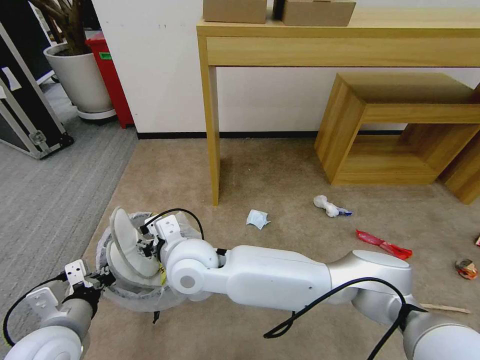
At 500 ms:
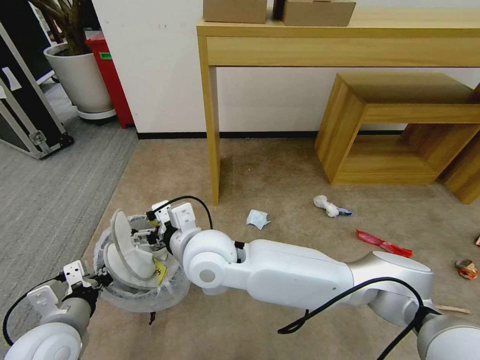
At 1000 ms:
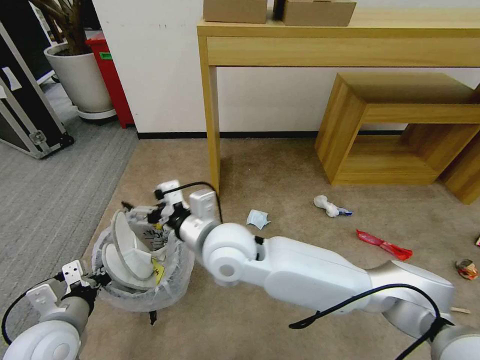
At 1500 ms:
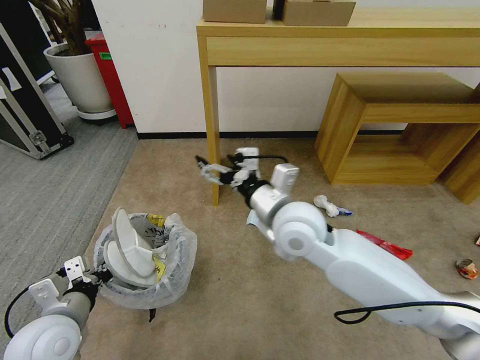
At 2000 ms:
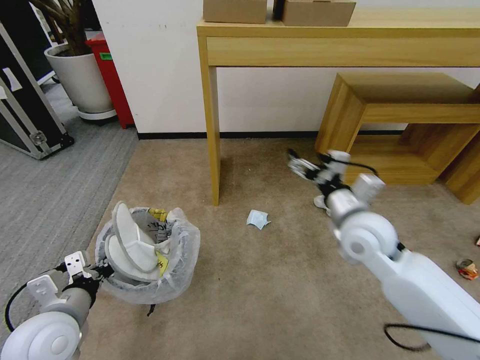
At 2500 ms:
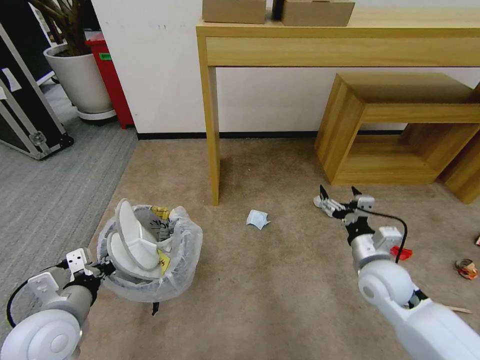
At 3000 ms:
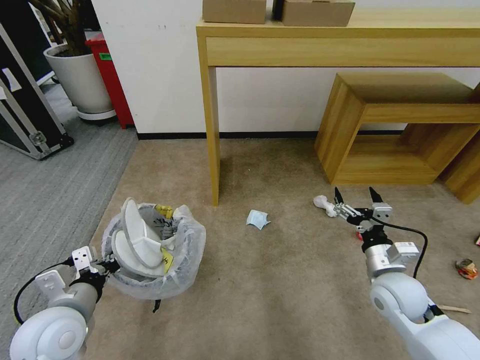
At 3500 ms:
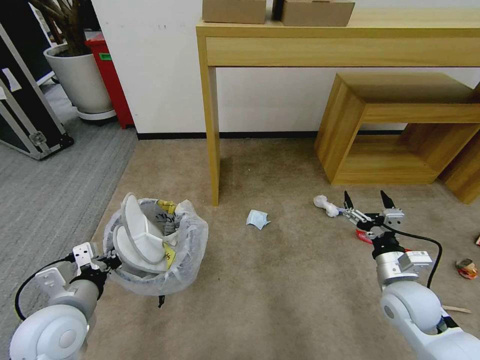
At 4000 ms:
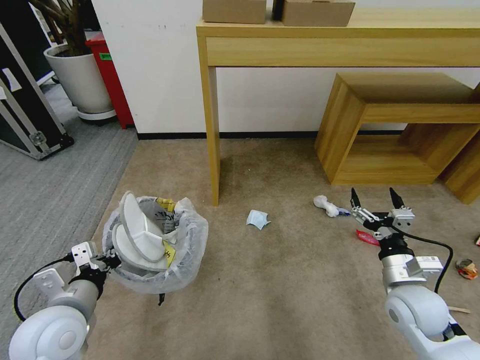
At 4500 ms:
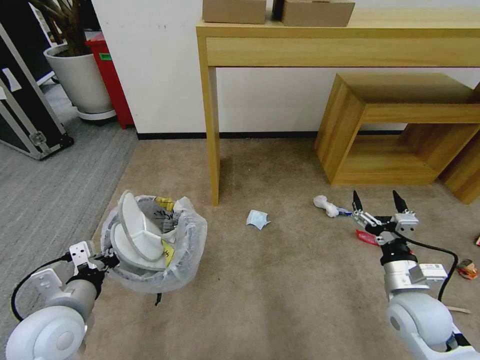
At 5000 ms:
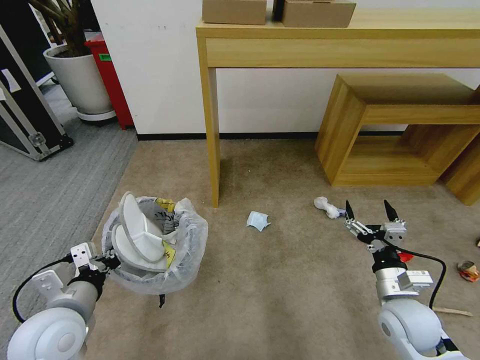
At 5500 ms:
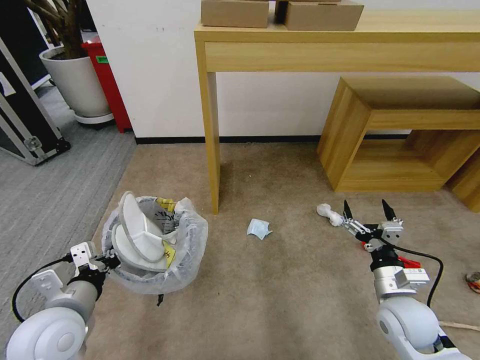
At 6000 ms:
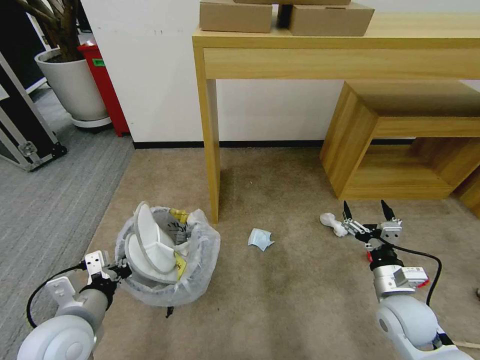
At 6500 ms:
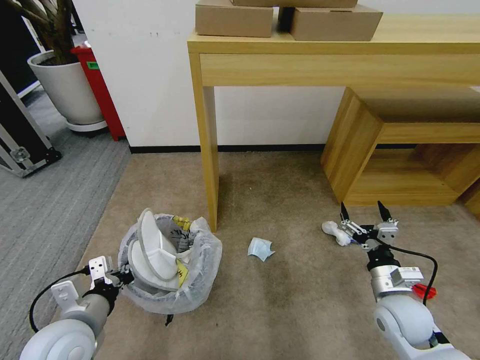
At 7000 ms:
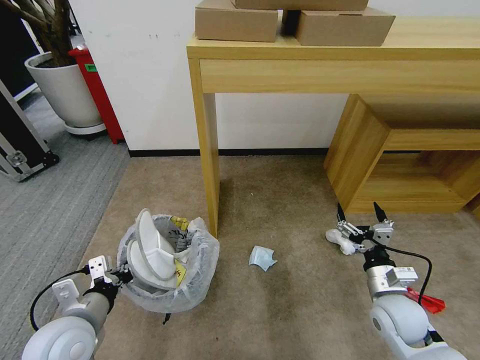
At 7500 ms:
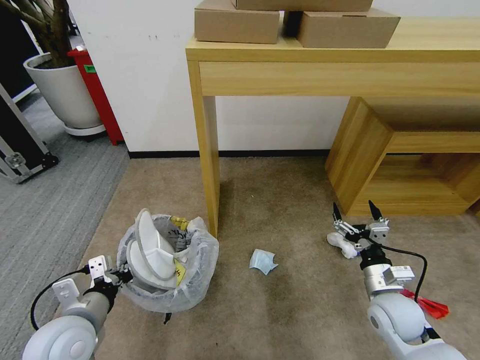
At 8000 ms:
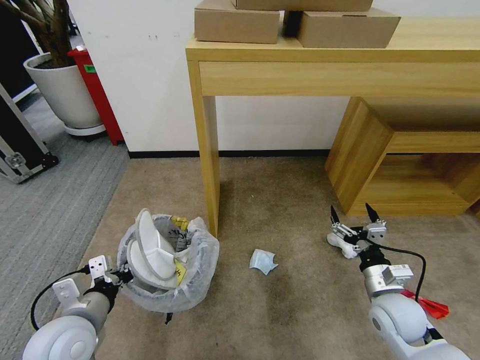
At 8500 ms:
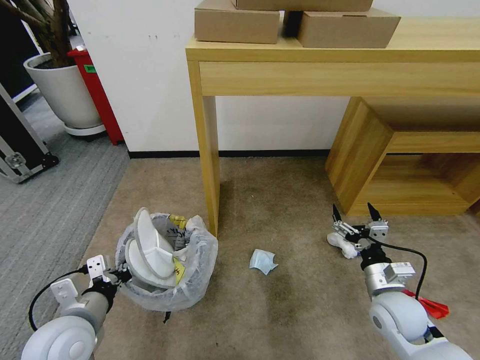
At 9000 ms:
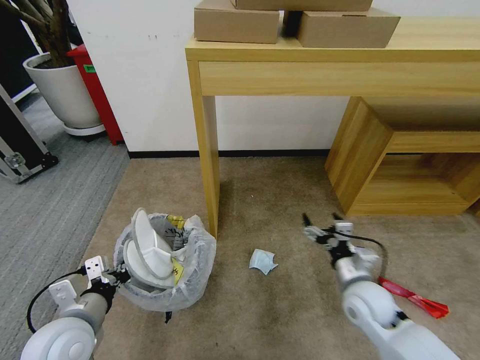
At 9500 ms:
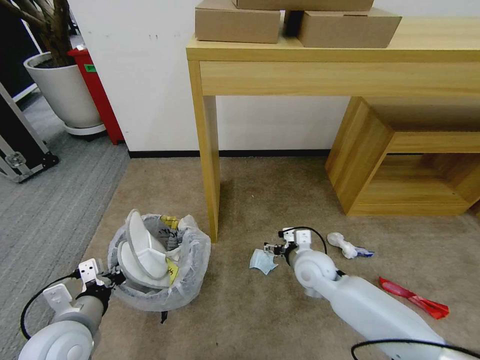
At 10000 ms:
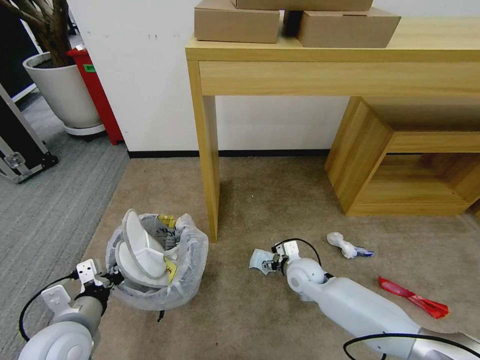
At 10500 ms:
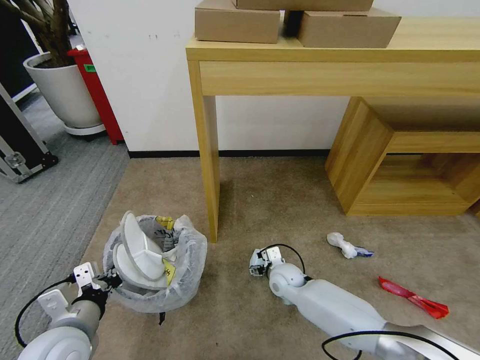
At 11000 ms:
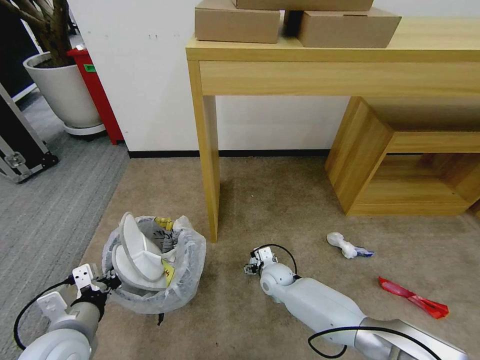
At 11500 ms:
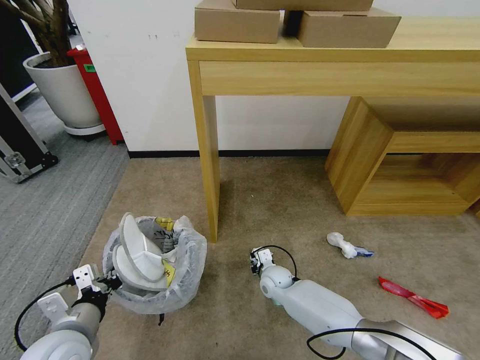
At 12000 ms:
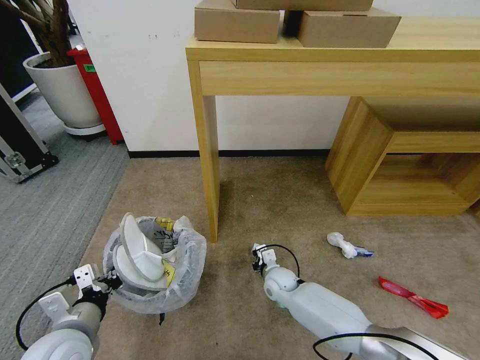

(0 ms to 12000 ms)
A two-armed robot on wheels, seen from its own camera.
Task of the whole recording: Pick up the trash bin and place the garbage on the floor into it.
0 ms - 2000 ms: The right gripper heads to the right, covering some 30 cm, and opens.
2000 ms - 4000 ms: The right gripper travels downward, to the right and backward by some 20 cm.
8000 ms - 10000 ms: The right gripper is displaced to the left, forward and downward by some 20 cm.
10000 ms - 12000 ms: The right gripper goes roughly 10 cm downward and to the left, and closes its fingers.

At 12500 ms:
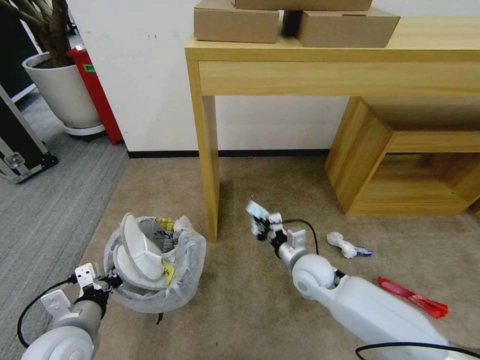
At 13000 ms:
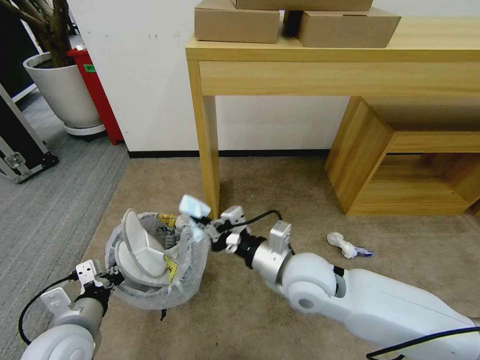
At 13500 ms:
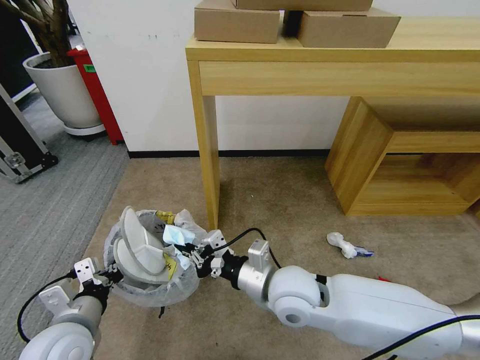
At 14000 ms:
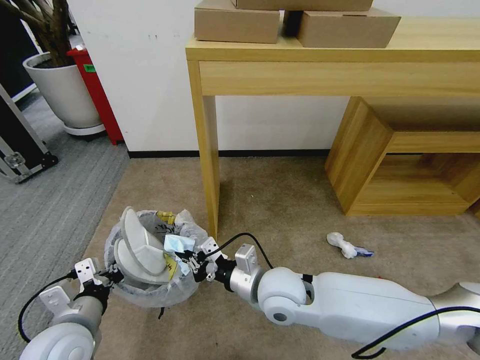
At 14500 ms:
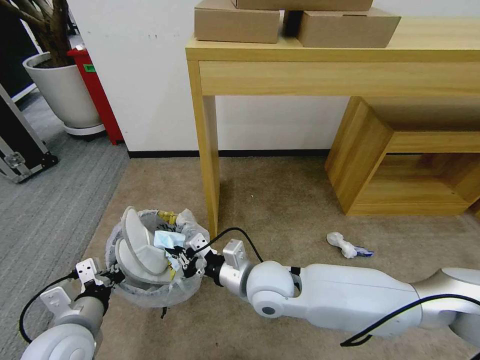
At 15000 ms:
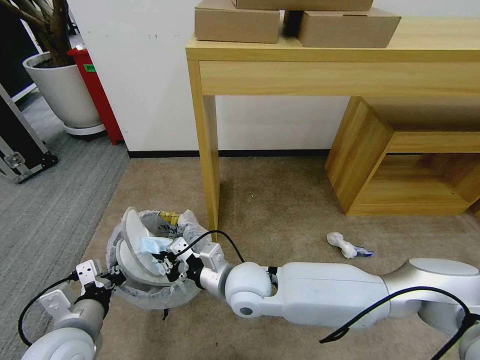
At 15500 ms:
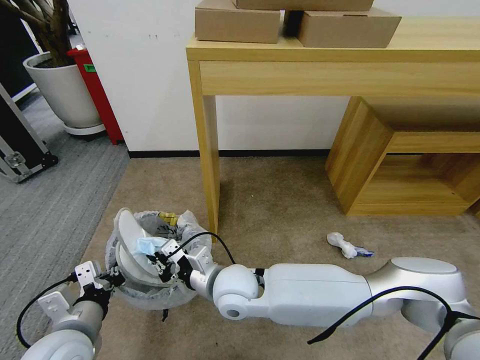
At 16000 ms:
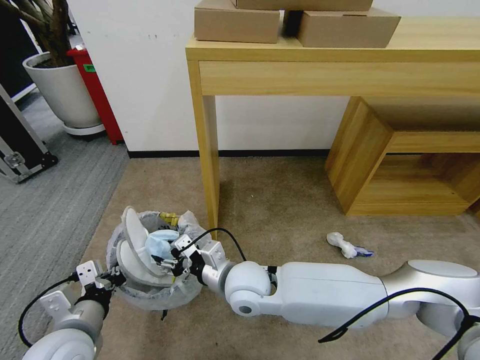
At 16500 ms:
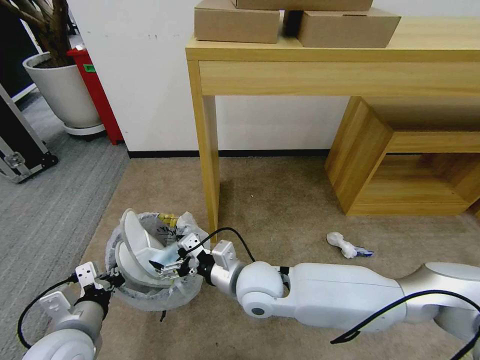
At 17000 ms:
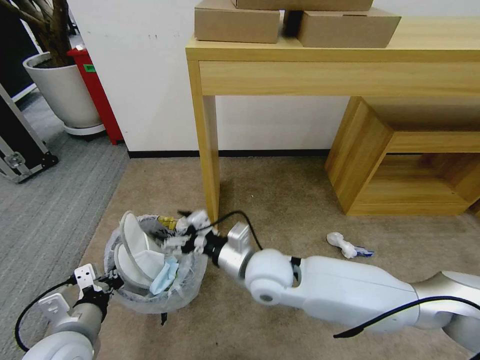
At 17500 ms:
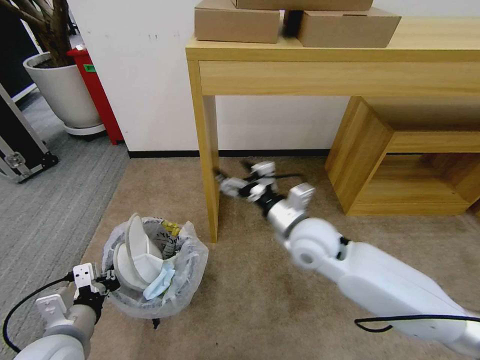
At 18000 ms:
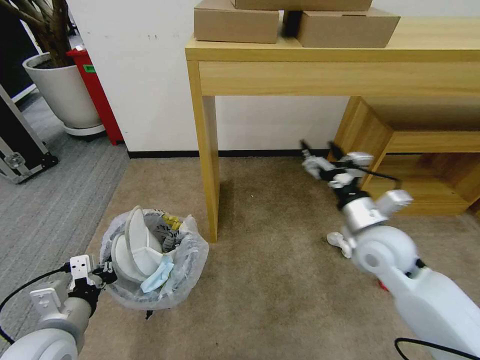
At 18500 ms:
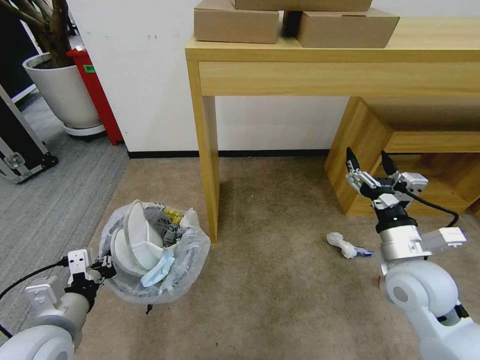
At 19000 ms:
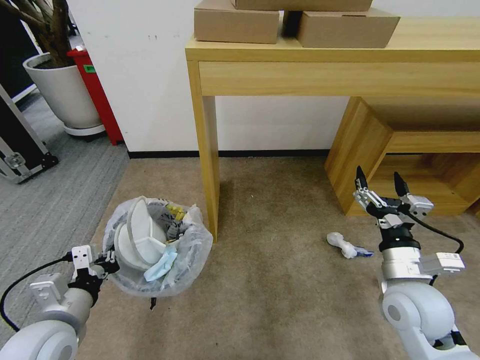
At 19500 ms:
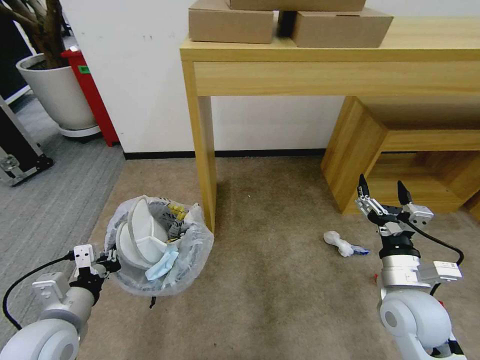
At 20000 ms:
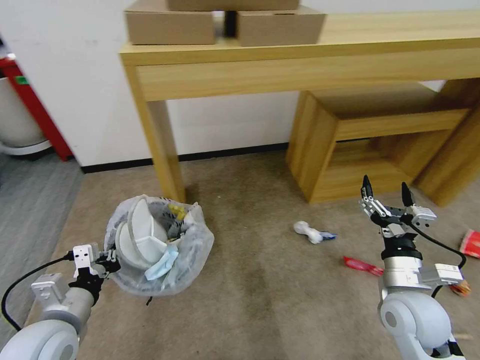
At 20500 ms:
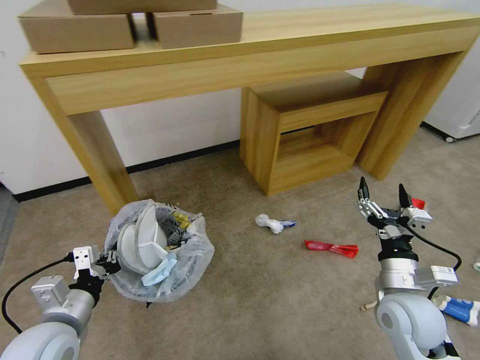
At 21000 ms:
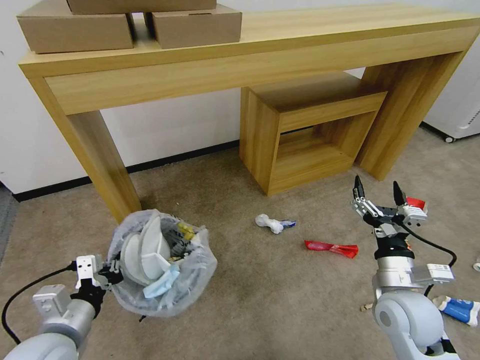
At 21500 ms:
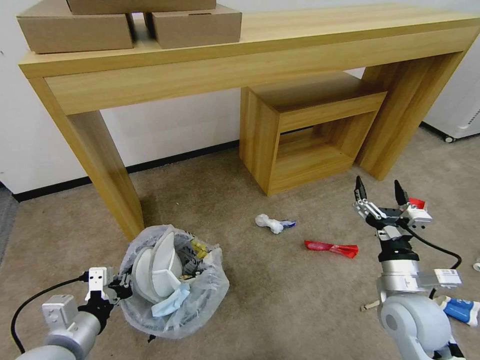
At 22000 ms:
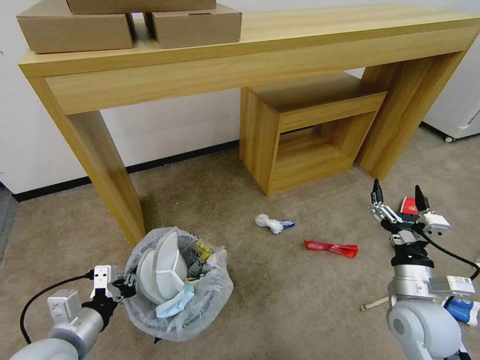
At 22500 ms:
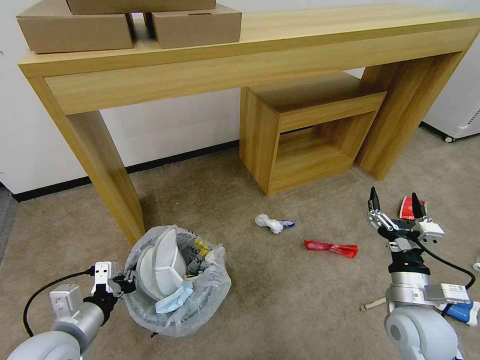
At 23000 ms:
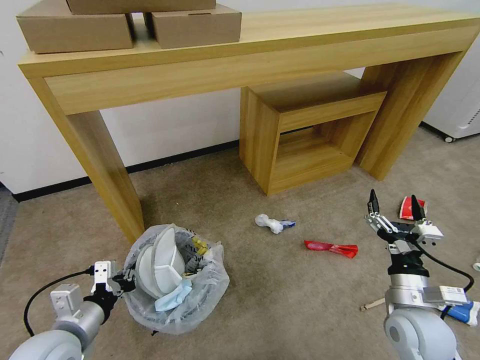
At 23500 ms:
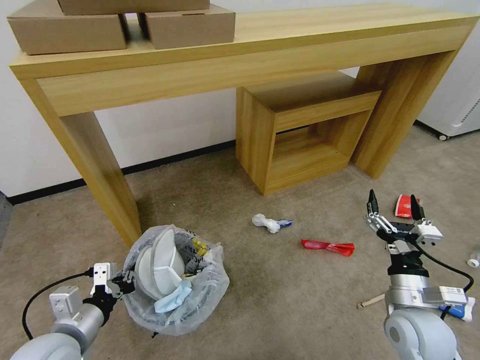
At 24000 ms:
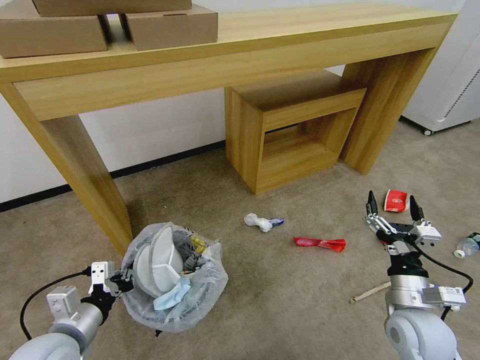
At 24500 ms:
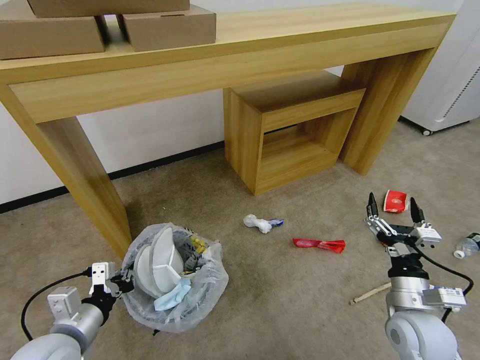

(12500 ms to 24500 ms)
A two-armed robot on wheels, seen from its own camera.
Task of the whole recording: Pick up the trash bin and place the garbage on the floor into it.
12500 ms - 14500 ms: The right gripper heads to the left, upward and backward, covering about 15 cm.
14500 ms - 16500 ms: The right gripper opens its fingers.
16500 ms - 18500 ms: The right gripper moves to the right, some 25 cm.
18500 ms - 20500 ms: The right gripper is displaced downward by roughly 5 cm.
20500 ms - 22500 ms: The grippers make only small movements.

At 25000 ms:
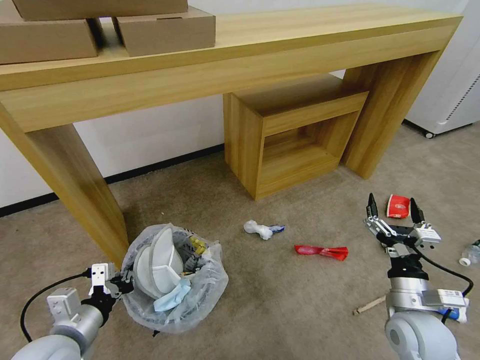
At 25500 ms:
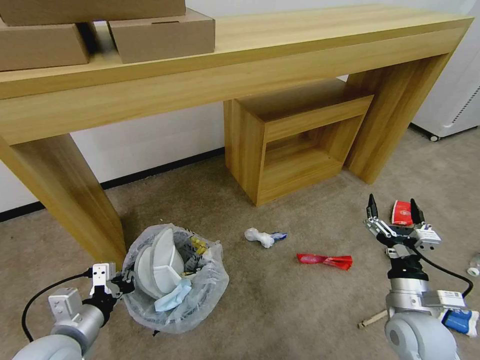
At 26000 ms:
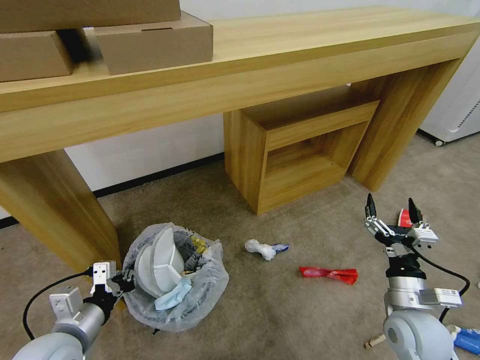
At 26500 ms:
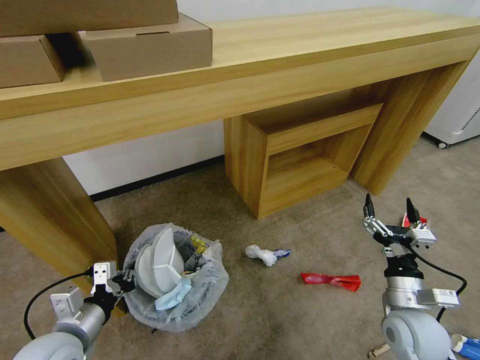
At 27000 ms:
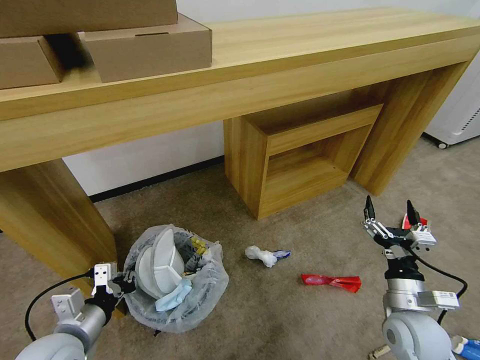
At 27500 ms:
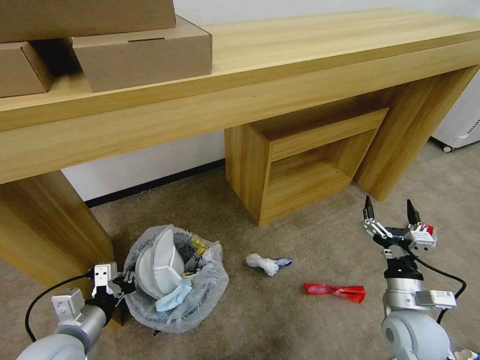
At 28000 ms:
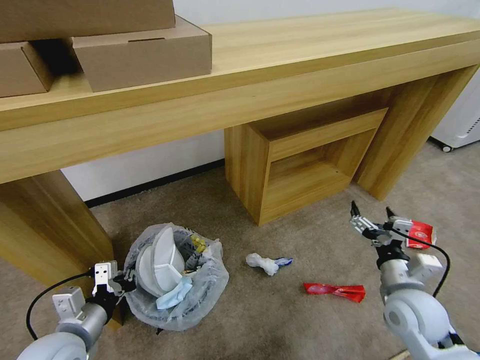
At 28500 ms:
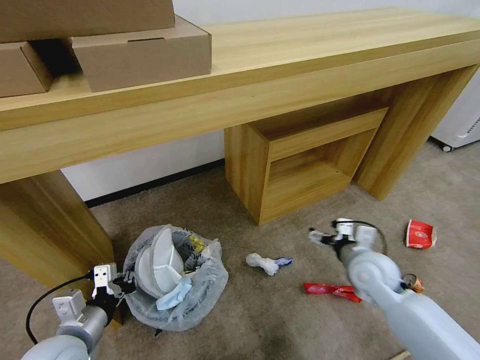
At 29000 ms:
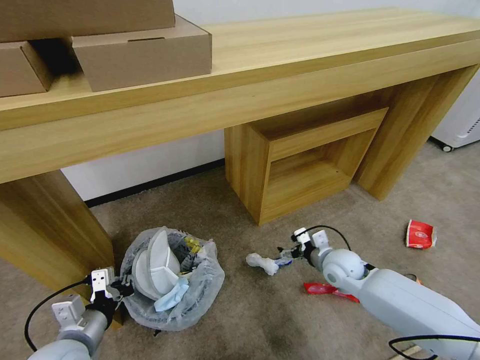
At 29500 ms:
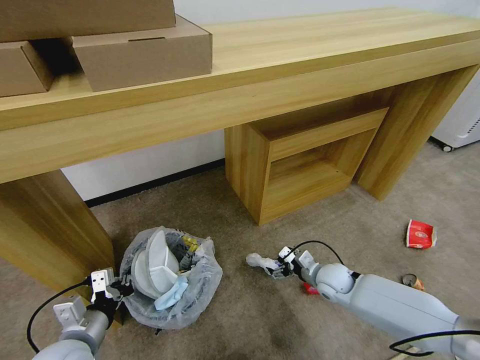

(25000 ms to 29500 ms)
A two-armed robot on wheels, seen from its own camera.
Task of the whole recording: Pick up the trash bin and place the garbage on the floor into it.
27000 ms - 29500 ms: The right gripper travels forward, downward and to the left by approximately 20 cm.
